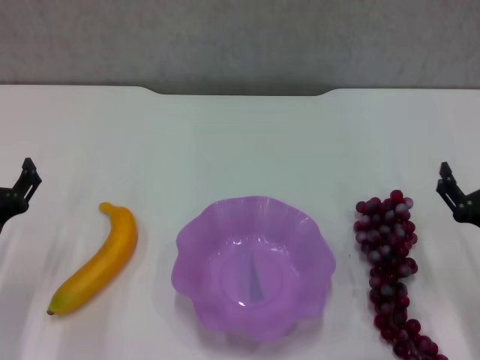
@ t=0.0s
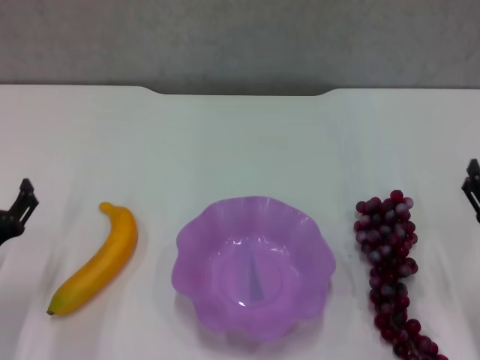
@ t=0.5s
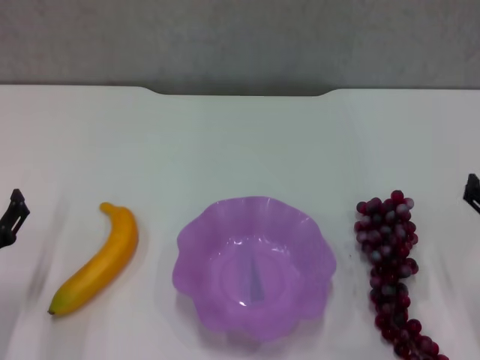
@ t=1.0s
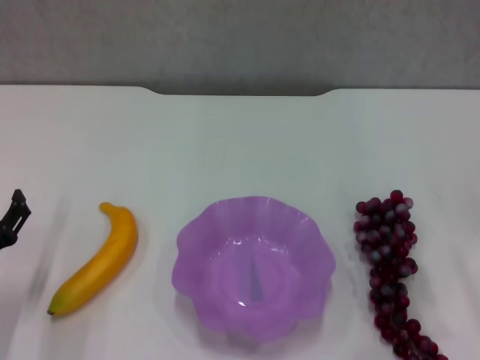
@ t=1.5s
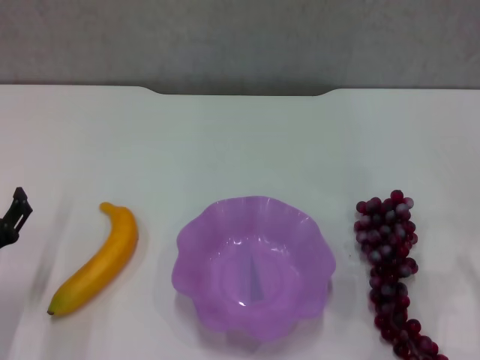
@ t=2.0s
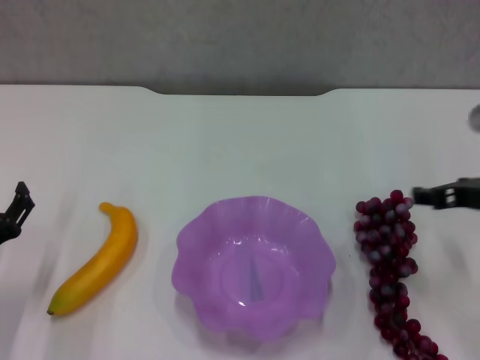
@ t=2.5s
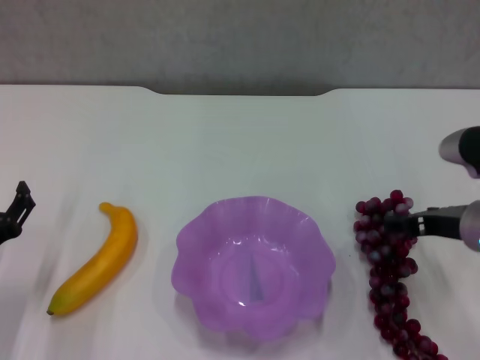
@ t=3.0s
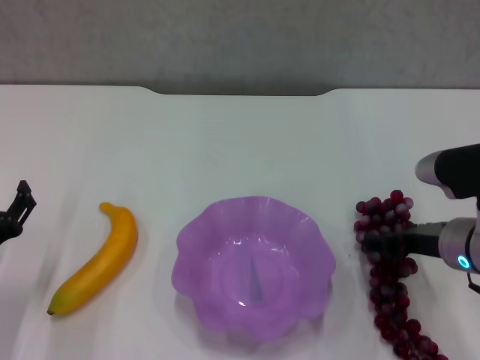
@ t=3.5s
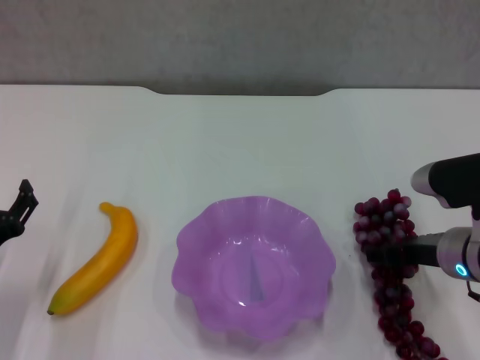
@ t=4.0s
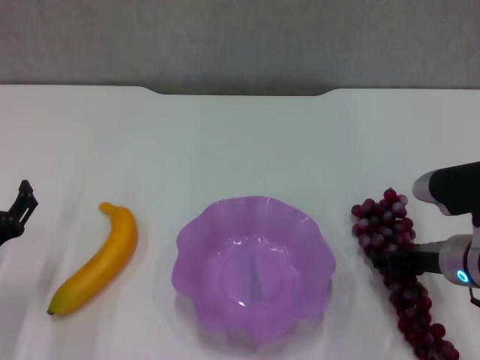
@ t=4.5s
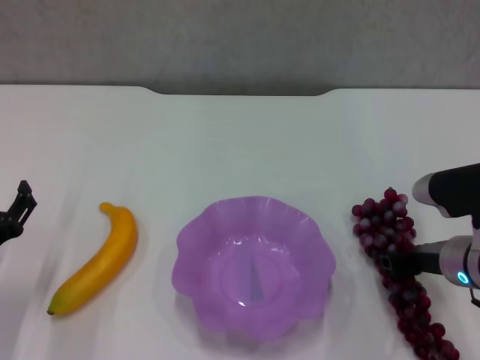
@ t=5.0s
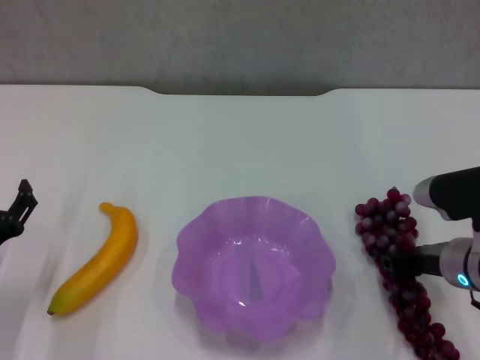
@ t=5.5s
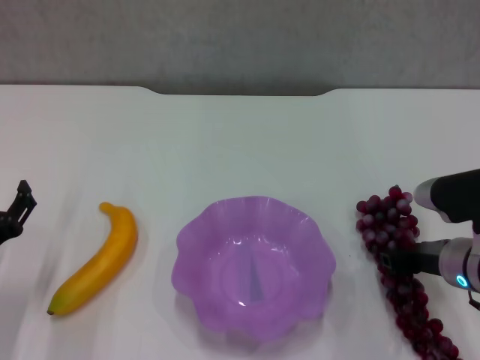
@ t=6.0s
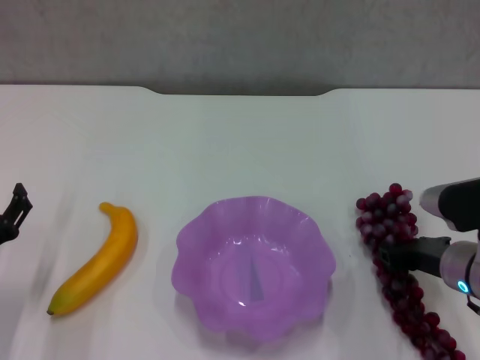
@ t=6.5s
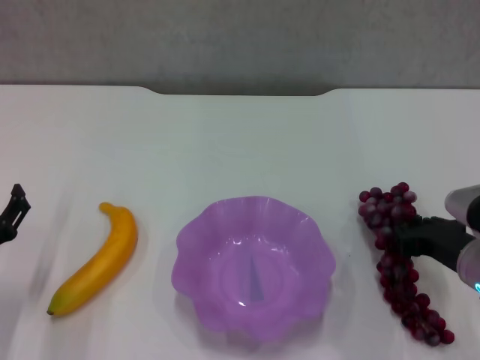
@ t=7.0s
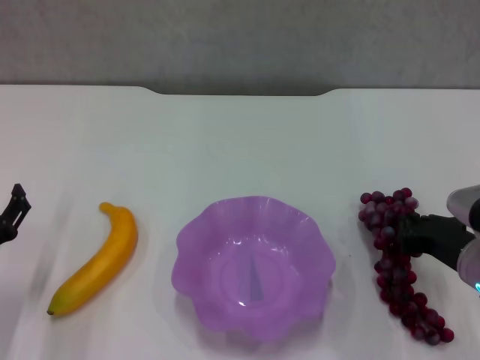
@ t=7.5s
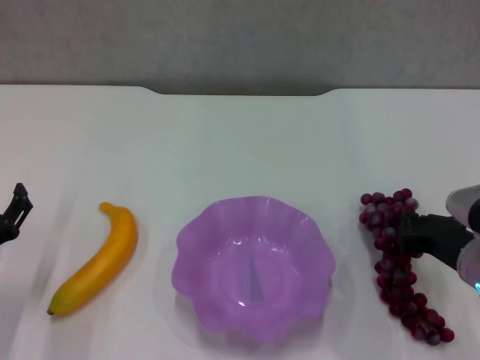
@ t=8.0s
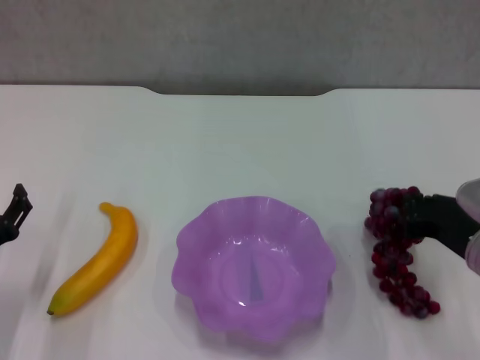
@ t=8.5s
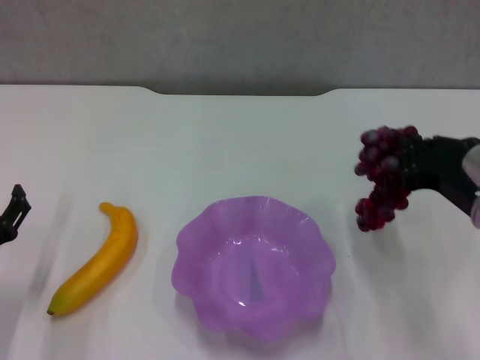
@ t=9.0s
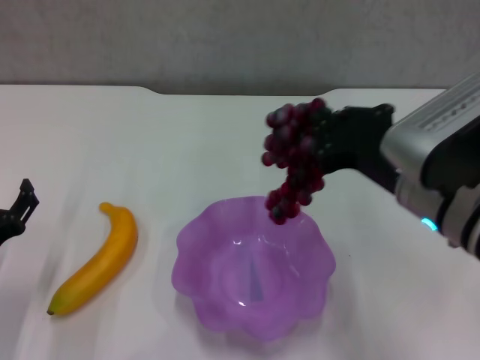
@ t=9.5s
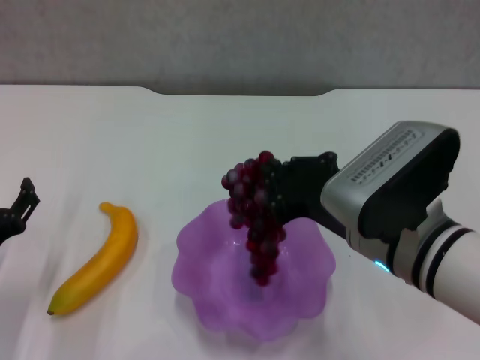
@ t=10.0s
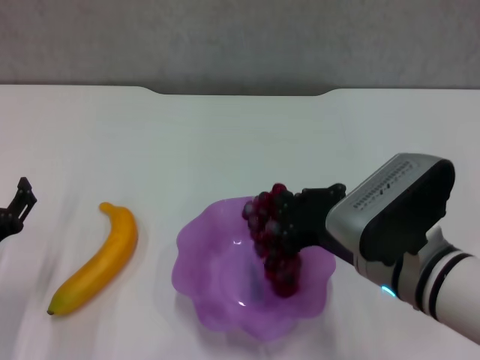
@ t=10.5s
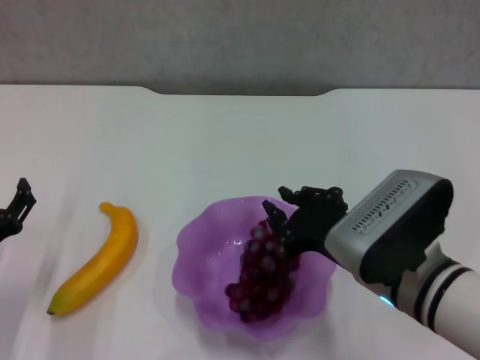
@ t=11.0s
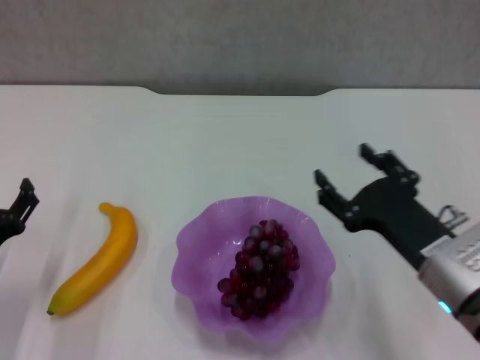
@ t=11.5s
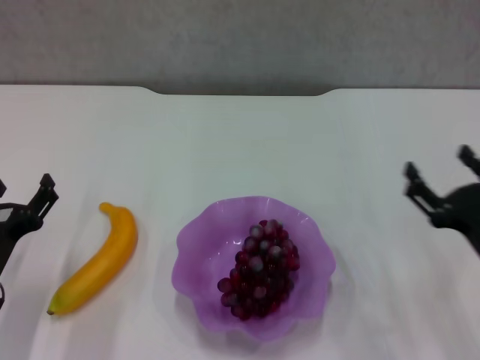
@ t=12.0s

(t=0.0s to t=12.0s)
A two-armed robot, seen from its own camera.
Step, t=0.0s - t=4.5s: Grasp the grape with right gripper.
Step, t=5.0s - t=11.0s: Place the grape in the purple plate with right gripper.
t=0.0s - t=2.0s: The right gripper shifts approximately 15 cm upward.
t=2.0s - t=4.0s: The right gripper heads to the left and downward, covering about 15 cm.
t=4.0s - t=6.0s: The right gripper closes.
t=6.0s - t=8.0s: The right gripper closes.
t=8.0s - t=10.0s: The right gripper shifts roughly 15 cm to the left and upward.
t=10.0s - t=12.0s: The right gripper shifts some 15 cm to the right and downward, and opens its fingers.

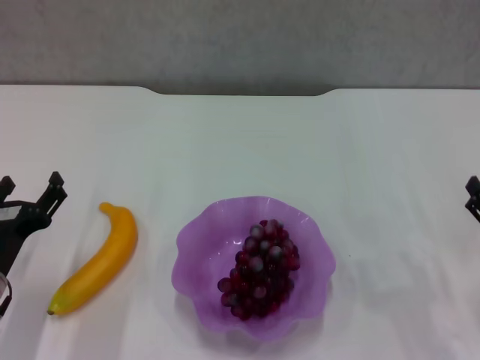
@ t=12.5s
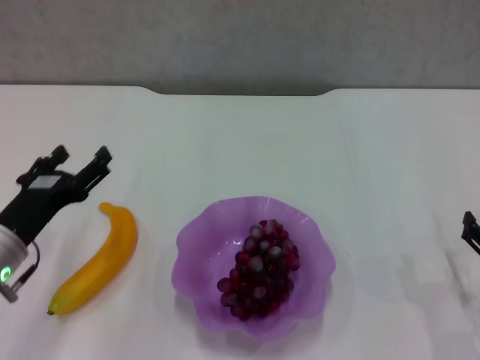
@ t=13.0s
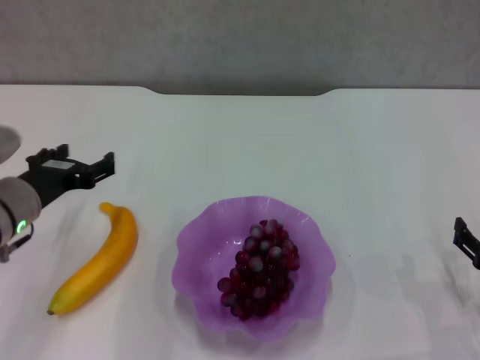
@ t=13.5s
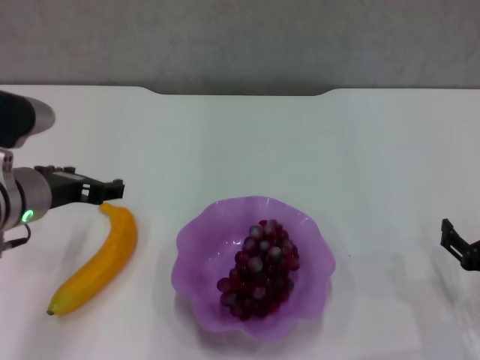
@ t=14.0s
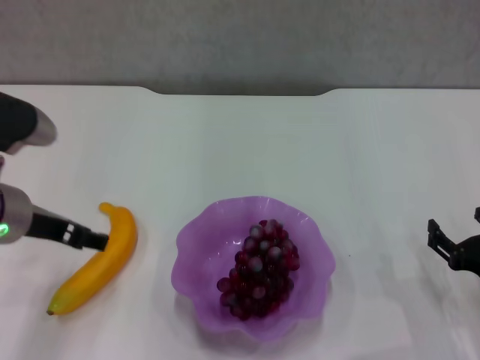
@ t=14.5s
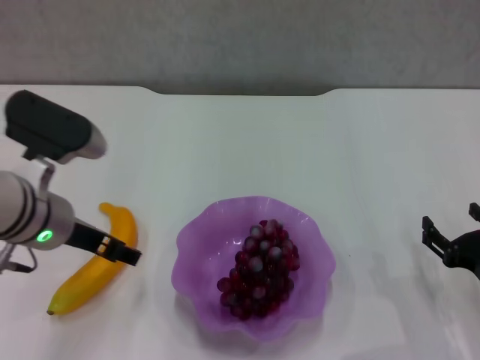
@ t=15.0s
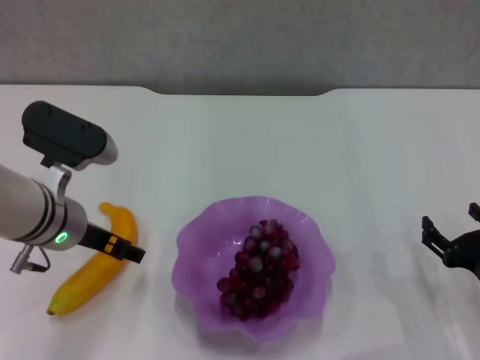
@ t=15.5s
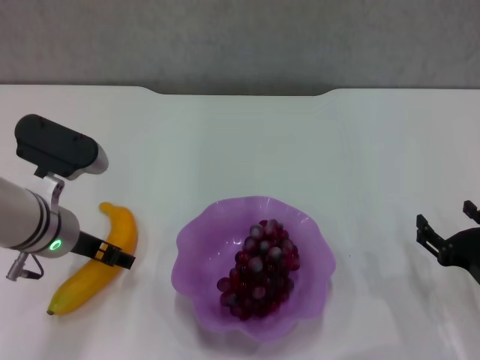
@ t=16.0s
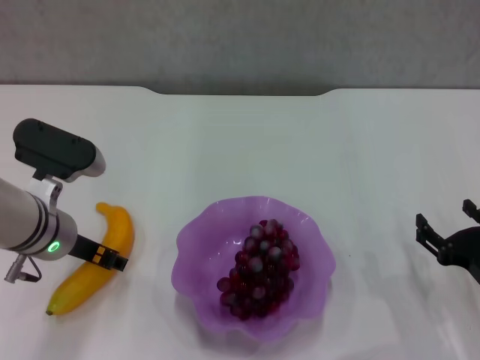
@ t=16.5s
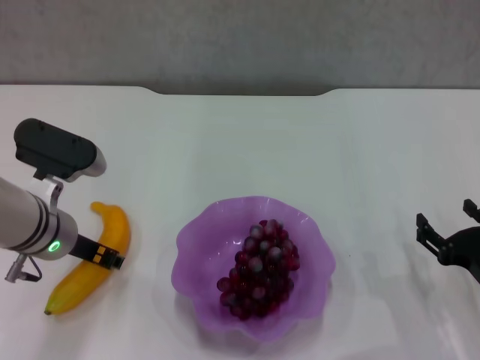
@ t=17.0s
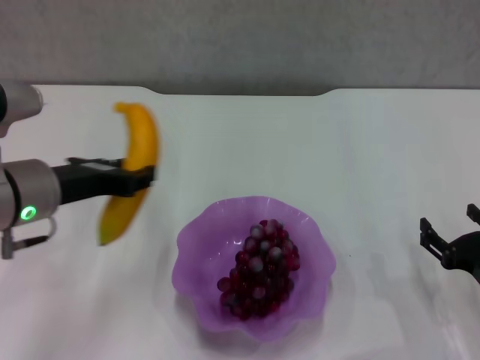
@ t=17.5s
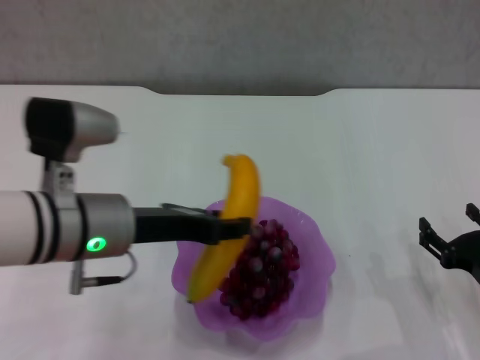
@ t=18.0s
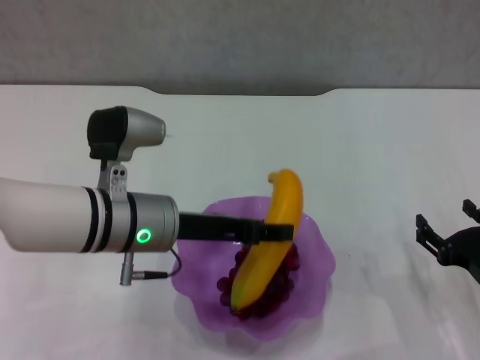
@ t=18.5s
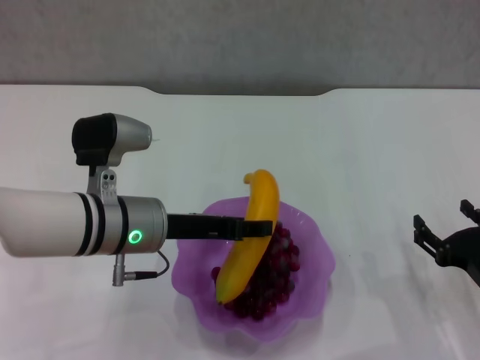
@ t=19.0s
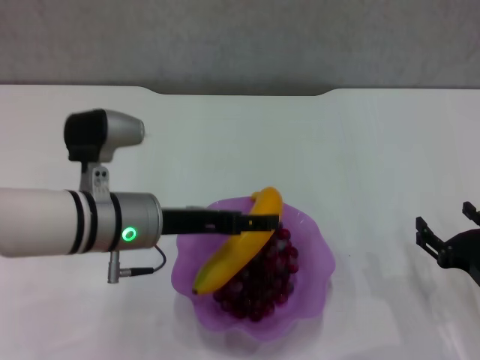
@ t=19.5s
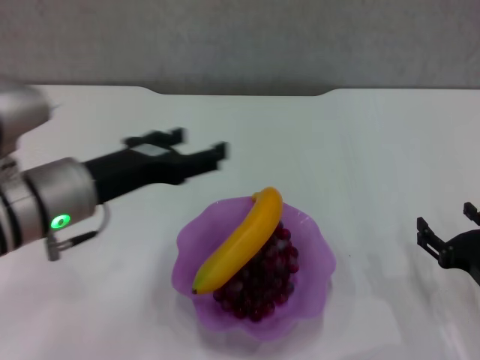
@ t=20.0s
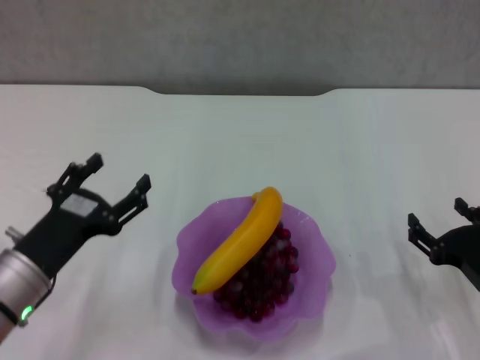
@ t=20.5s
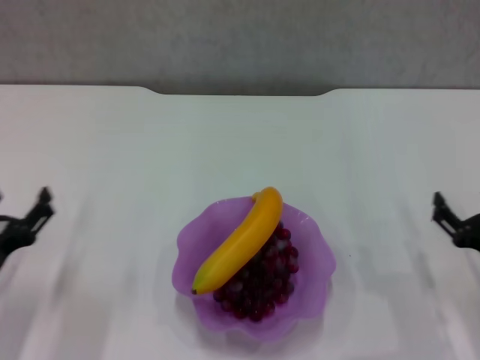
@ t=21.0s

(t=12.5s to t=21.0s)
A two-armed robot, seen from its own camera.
Step, t=12.5s - t=16.5s: Grasp the banana with left gripper.
Step, t=17.0s - t=19.5s: Place the banana in the purple plate with left gripper.
t=12.5s - t=14.5s: The left gripper heads upward and forward, covering about 15 cm.
t=14.5s - t=16.5s: The left gripper shifts about 5 cm downward.
t=16.5s - t=19.0s: The left gripper shifts some 5 cm to the right, and closes.
t=19.0s - t=21.0s: The left gripper travels to the left, backward and downward by approximately 20 cm, and opens.
